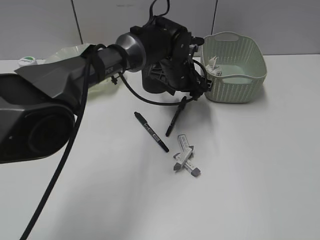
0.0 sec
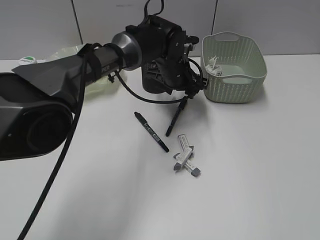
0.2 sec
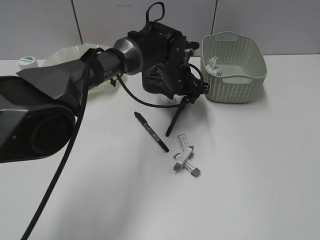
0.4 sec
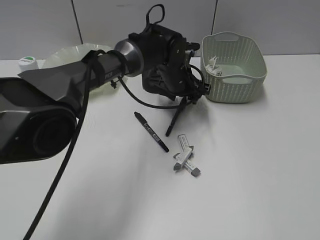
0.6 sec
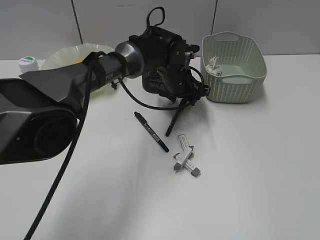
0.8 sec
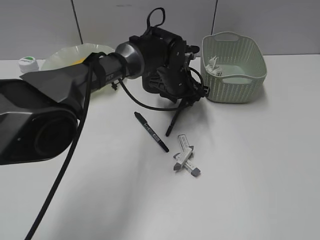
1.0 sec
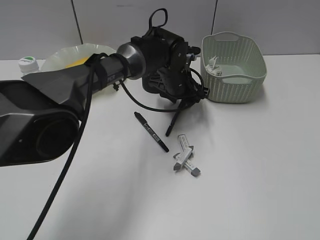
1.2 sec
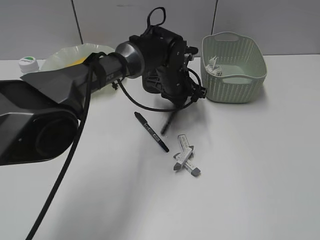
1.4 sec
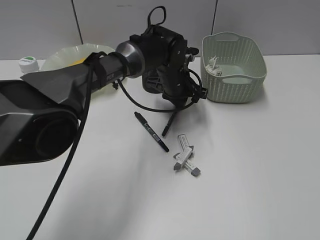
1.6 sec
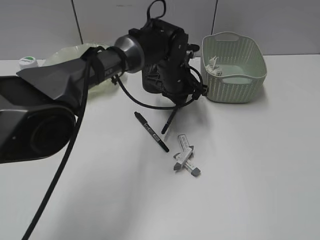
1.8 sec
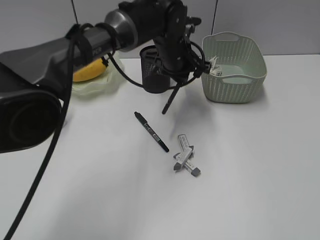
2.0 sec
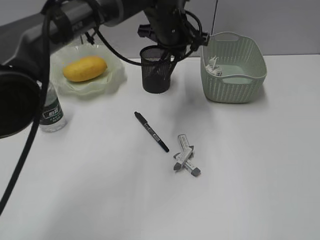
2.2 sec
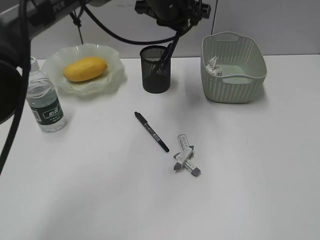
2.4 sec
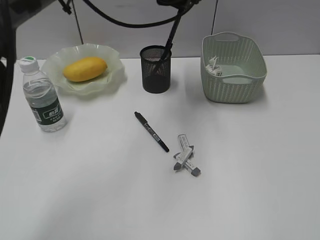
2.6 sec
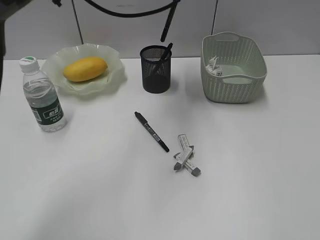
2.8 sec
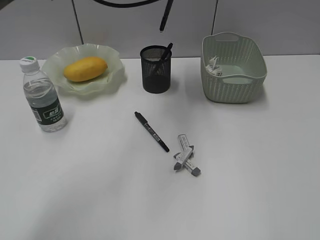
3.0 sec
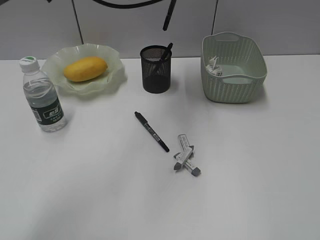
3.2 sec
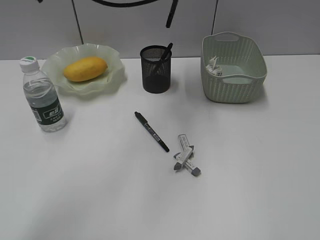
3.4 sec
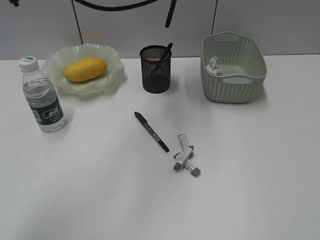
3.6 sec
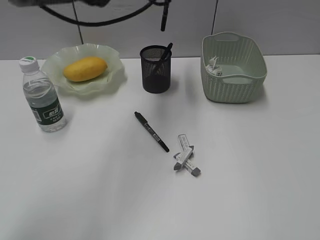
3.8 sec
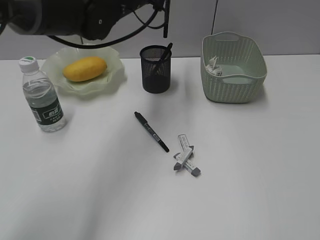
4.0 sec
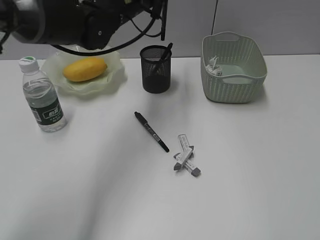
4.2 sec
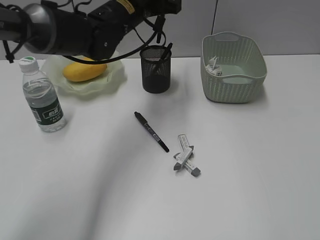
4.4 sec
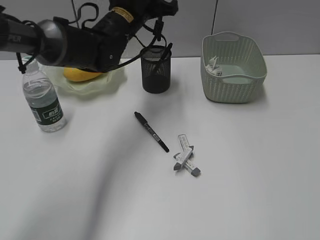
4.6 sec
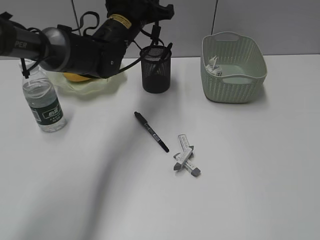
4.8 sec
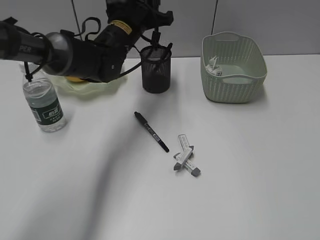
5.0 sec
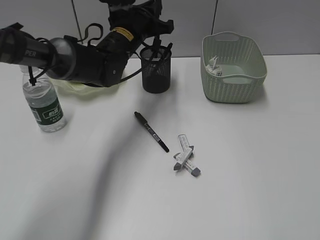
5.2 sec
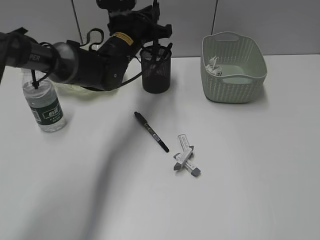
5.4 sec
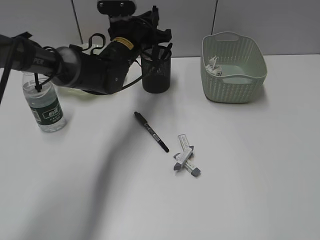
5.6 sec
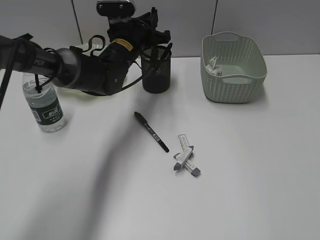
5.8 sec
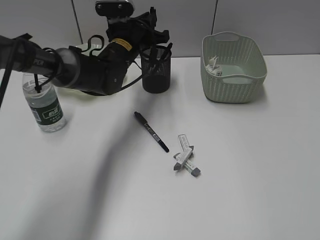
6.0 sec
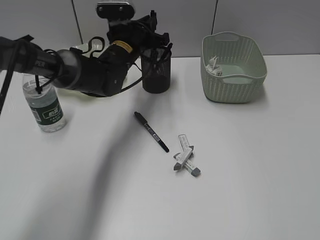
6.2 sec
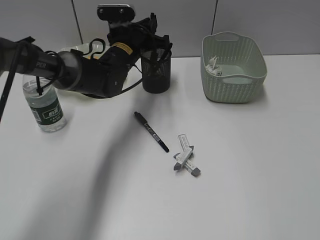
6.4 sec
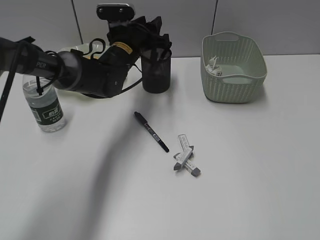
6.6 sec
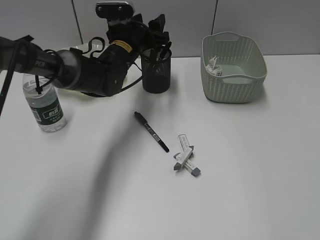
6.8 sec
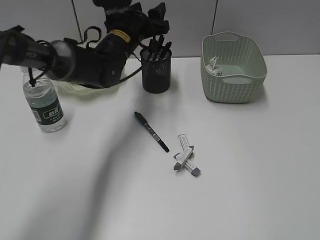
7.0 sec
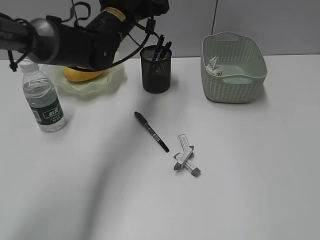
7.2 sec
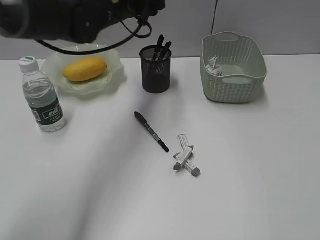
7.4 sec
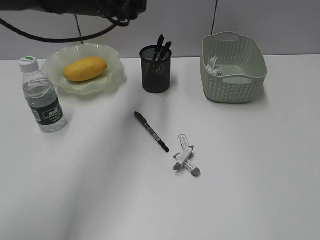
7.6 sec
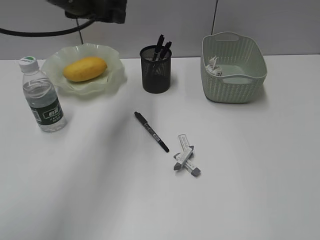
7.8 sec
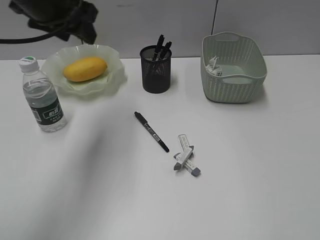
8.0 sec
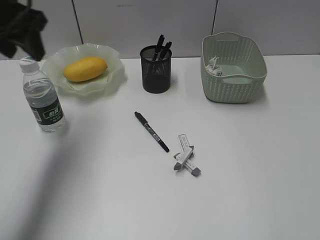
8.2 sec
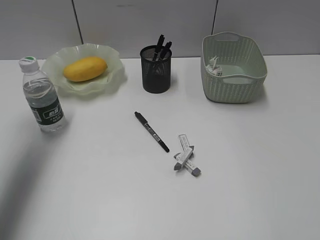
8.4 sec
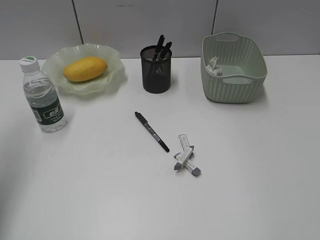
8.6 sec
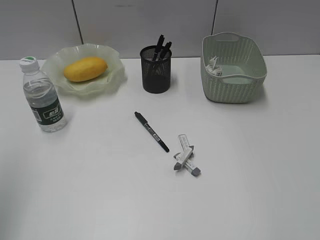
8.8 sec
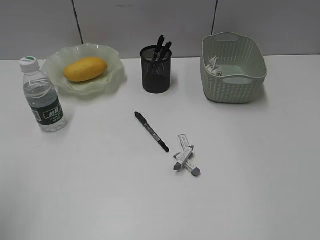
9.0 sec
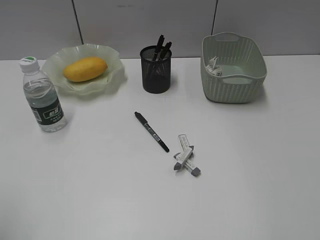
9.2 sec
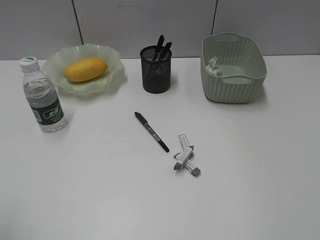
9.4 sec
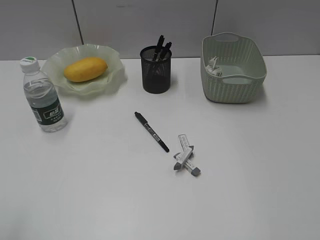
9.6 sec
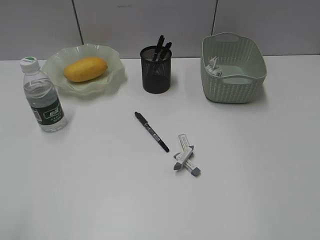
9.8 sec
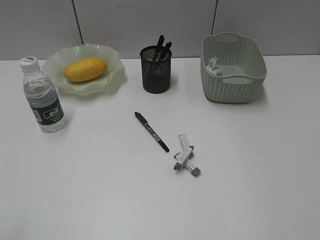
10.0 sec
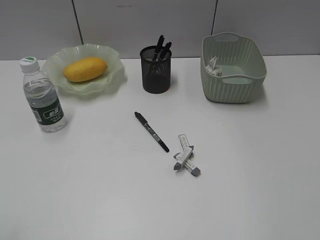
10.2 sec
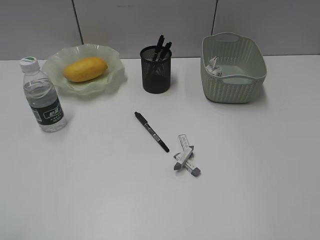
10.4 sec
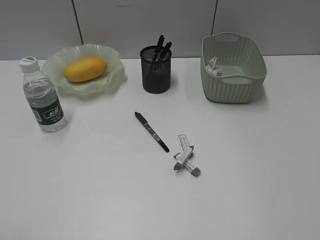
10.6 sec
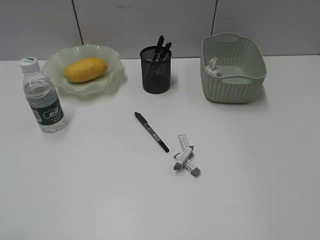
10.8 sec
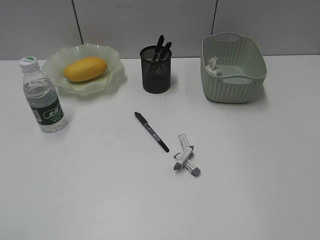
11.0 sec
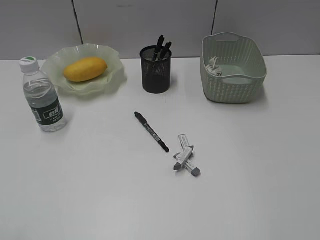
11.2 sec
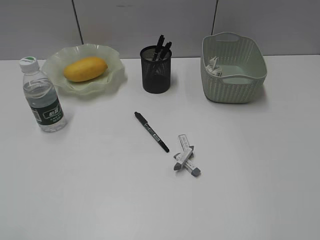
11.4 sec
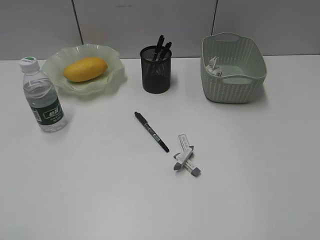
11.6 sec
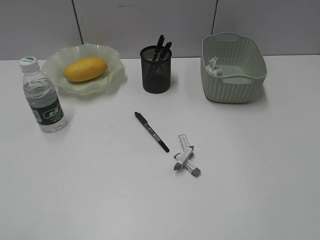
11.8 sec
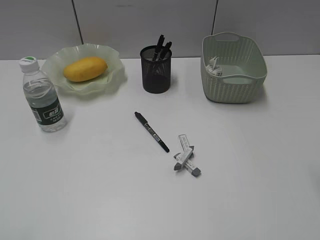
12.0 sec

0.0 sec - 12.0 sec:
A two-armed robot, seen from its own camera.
Step, 1.8 sec - 7.0 sec: Place the black pen in pen holder with left gripper.
0.0 sec - 1.6 sec: The left gripper closes its fingers.
1.6 sec - 3.0 sec: The left gripper is displaced upward by about 25 cm.
3.0 sec - 4.4 sec: The left gripper shifts roughly 10 cm downward.
4.4 sec - 6.0 sec: The left gripper is displaced downward by approximately 10 cm.
6.0 sec - 7.6 sec: The left gripper travels upward by approximately 10 cm, and opens up.
7.6 sec - 9.0 sec: The left gripper is displaced backward and to the left by some 40 cm.

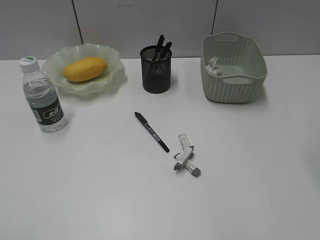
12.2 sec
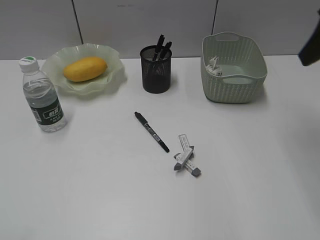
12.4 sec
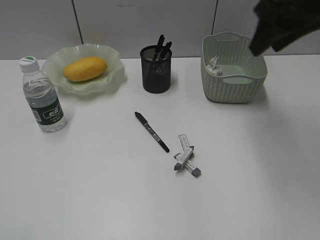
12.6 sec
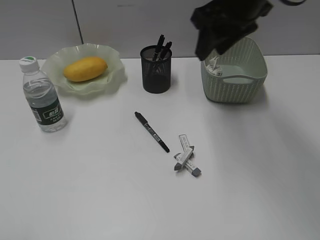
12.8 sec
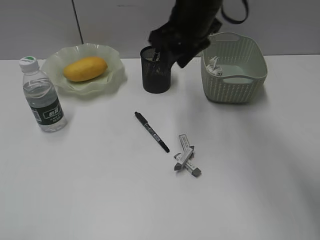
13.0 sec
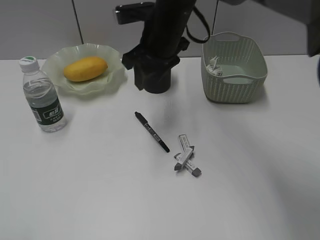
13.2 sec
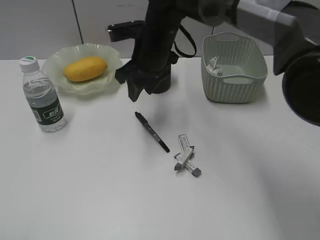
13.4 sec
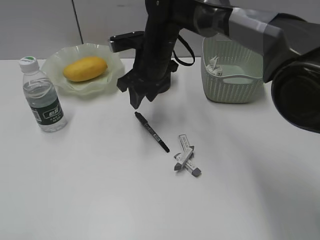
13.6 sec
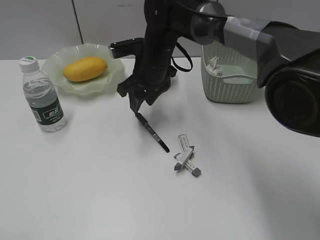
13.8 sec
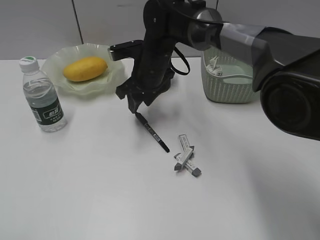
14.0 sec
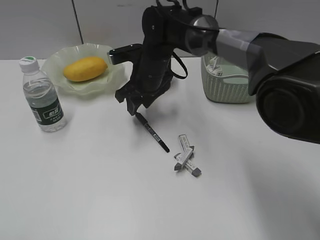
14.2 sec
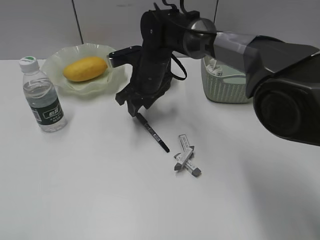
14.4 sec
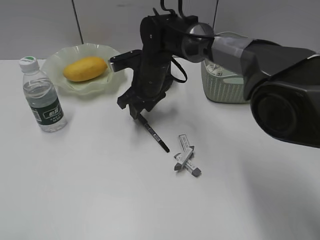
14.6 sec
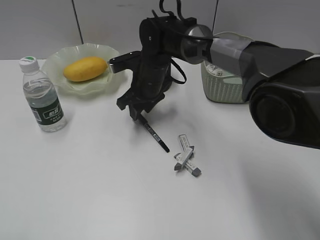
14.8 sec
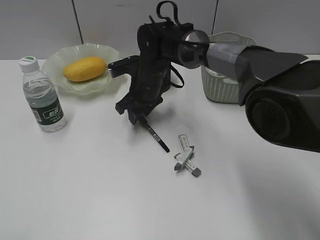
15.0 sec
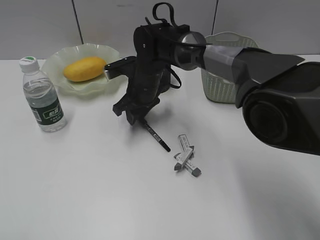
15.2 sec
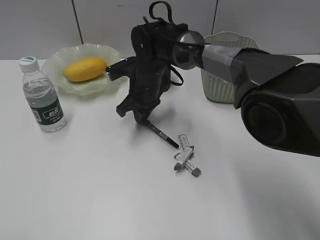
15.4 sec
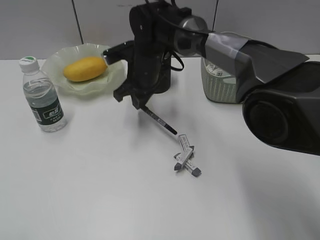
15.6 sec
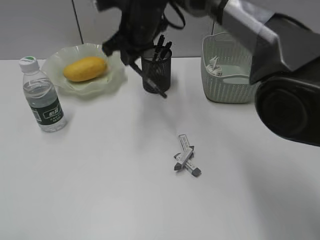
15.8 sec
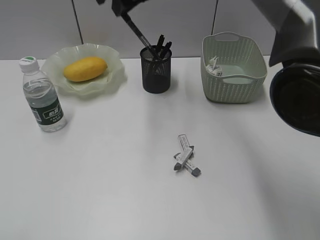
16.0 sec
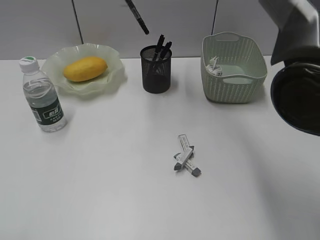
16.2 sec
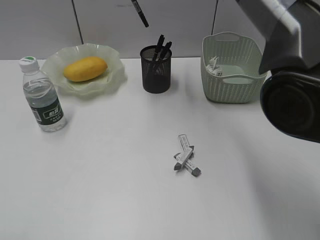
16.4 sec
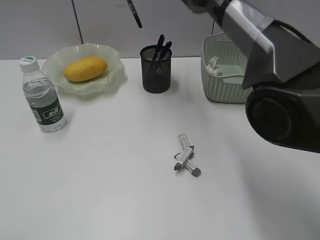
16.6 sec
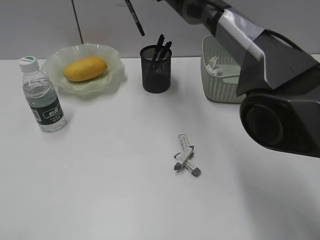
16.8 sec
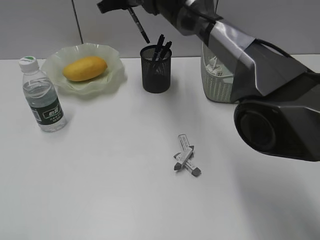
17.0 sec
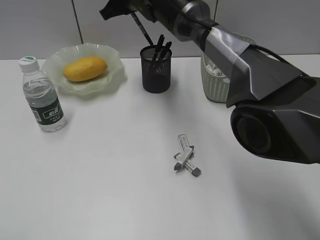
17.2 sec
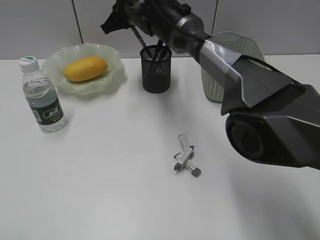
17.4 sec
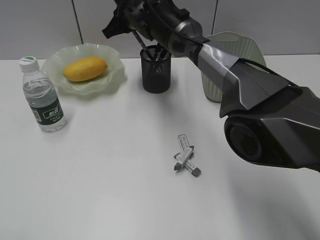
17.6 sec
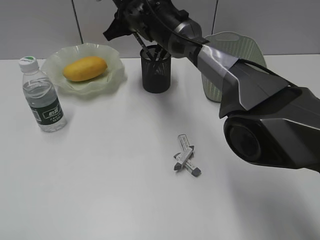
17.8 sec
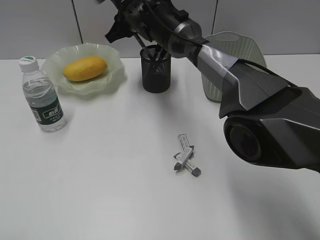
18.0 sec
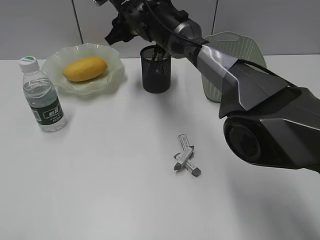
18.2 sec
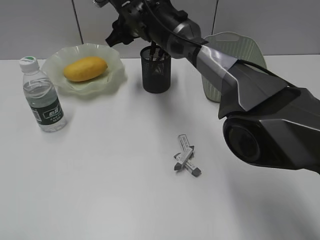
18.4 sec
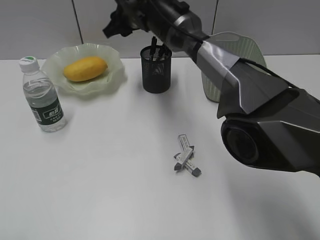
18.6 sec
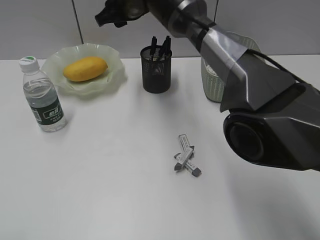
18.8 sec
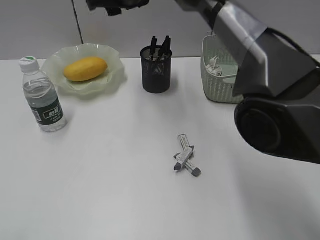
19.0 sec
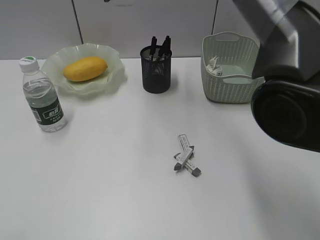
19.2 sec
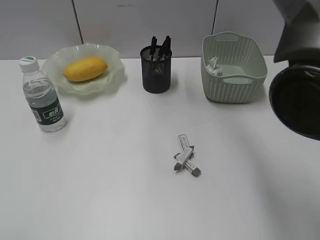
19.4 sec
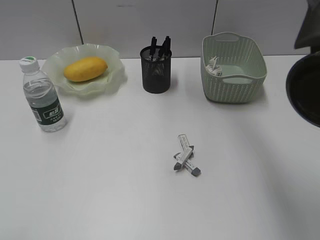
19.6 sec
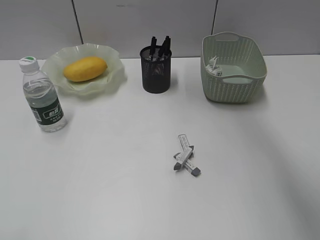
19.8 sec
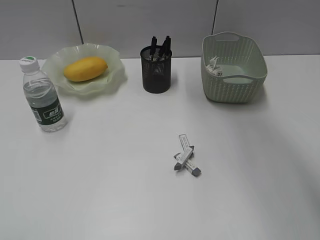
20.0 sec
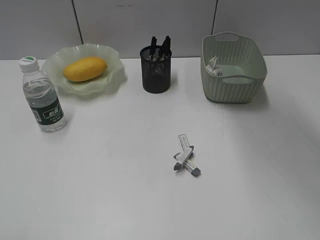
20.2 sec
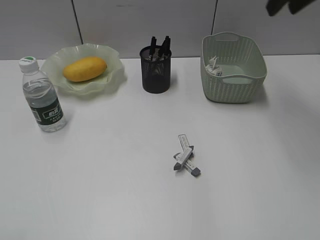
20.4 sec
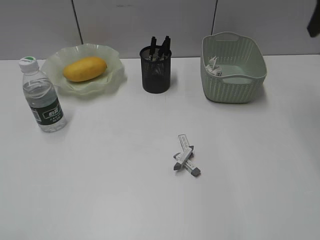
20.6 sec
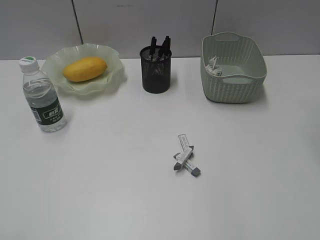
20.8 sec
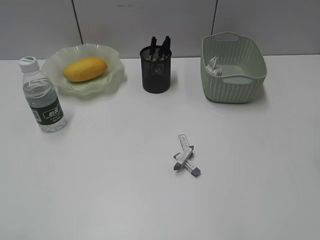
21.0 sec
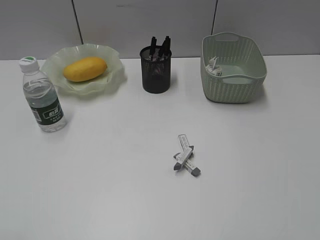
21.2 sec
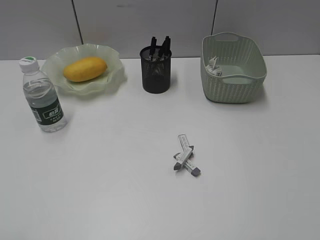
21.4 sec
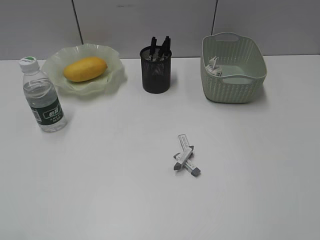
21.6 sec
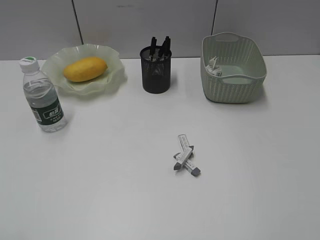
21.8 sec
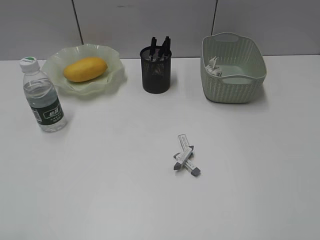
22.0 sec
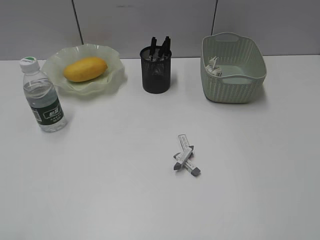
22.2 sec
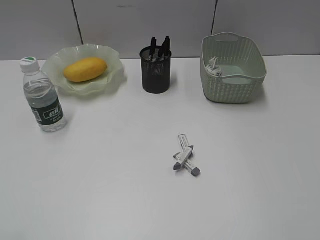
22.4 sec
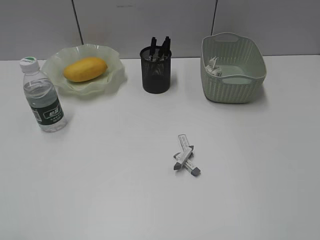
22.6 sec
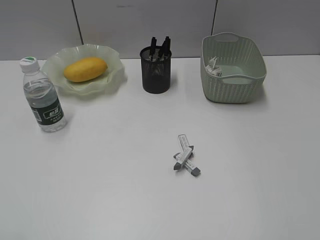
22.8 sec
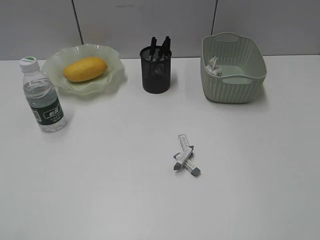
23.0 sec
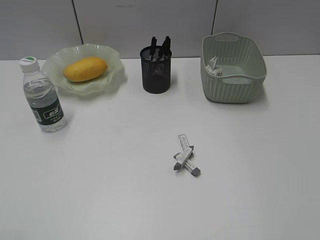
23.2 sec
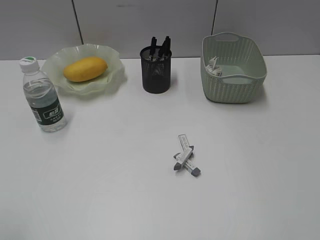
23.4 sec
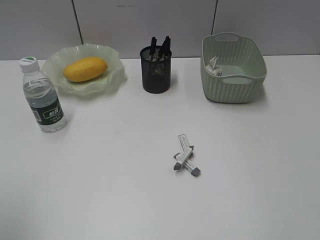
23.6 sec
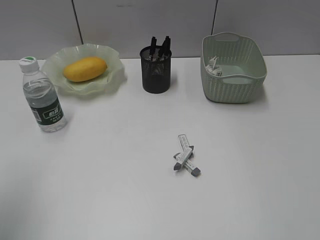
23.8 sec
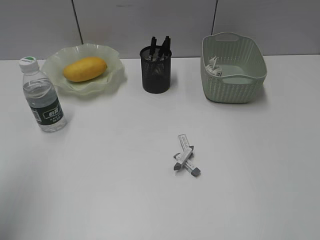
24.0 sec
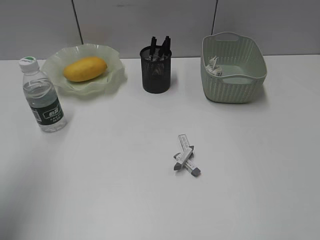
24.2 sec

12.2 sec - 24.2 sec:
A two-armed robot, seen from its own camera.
Step, 12.2 sec - 15.2 sec: Grasp the black pen with right gripper.
Step, 15.4 sec - 18.6 sec: Place the black pen in pen holder with right gripper.
12.2 sec - 13.8 sec: The right gripper goes some 40 cm to the left, forward and downward.
13.8 sec - 15.2 sec: The right gripper shifts some 5 cm downward.
15.2 sec - 16.6 sec: The right gripper heads upward, covering some 20 cm, and closes up.
16.6 sec - 18.2 sec: The right gripper heads downward, covering about 10 cm, and opens up.
18.2 sec - 19.8 sec: The right gripper shifts about 25 cm upward and backward.
19.8 sec - 21.2 sec: The right gripper is displaced to the right and backward by roughly 35 cm, and opens.
22.6 sec - 24.2 sec: The left gripper travels forward by roughly 20 cm.
